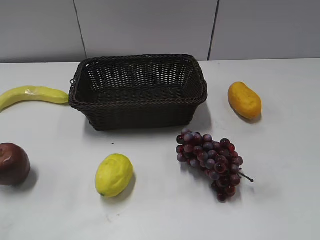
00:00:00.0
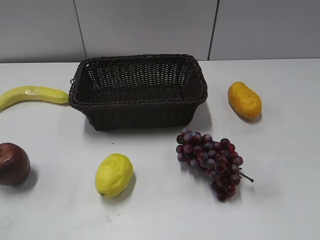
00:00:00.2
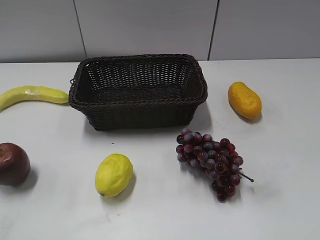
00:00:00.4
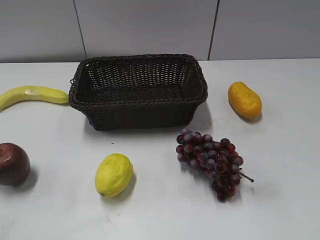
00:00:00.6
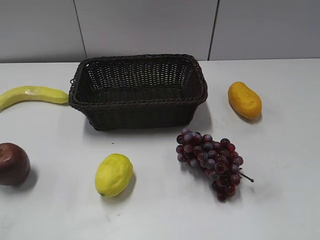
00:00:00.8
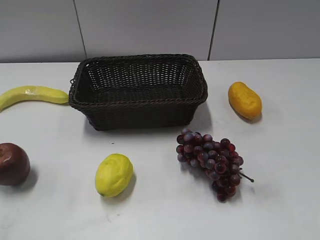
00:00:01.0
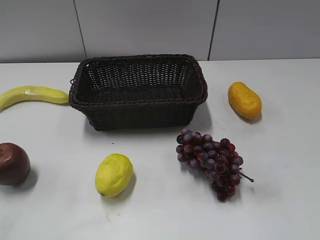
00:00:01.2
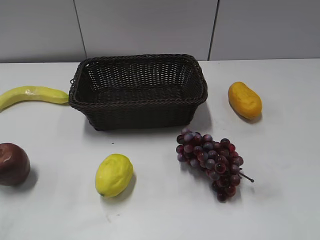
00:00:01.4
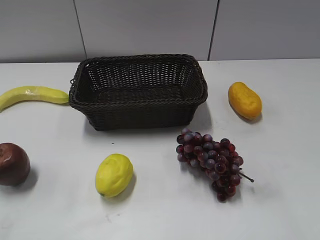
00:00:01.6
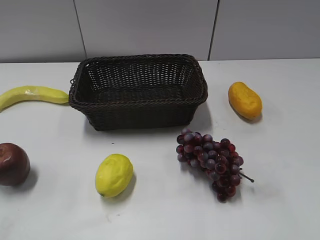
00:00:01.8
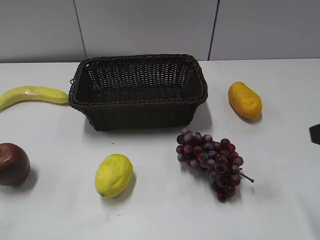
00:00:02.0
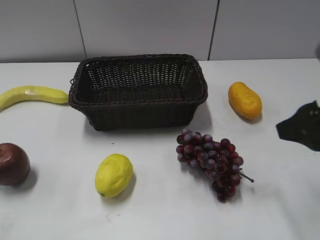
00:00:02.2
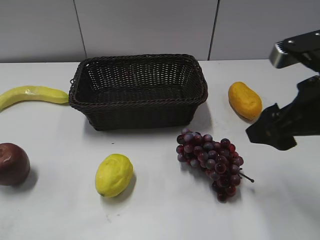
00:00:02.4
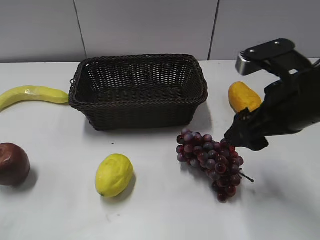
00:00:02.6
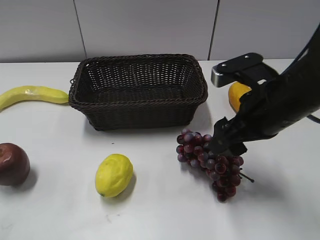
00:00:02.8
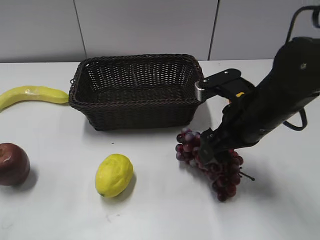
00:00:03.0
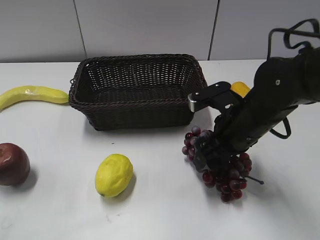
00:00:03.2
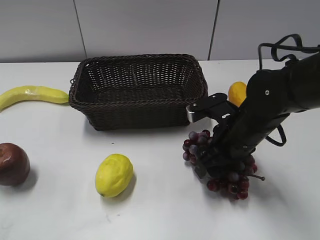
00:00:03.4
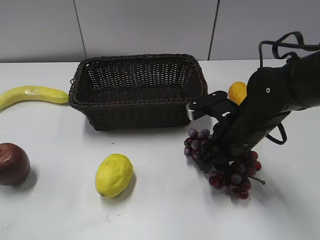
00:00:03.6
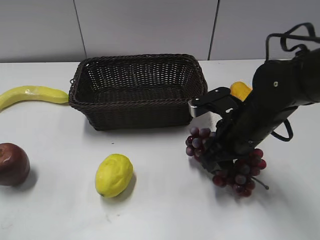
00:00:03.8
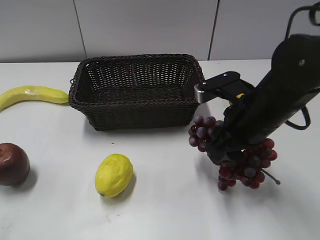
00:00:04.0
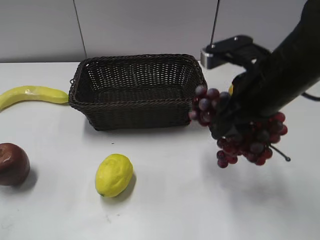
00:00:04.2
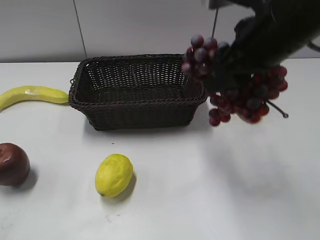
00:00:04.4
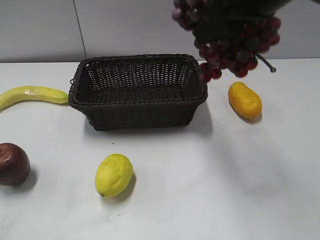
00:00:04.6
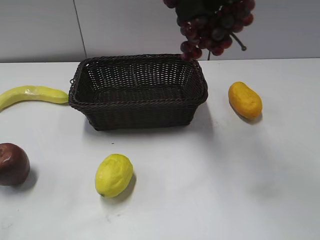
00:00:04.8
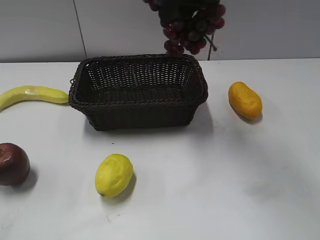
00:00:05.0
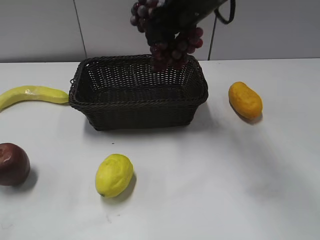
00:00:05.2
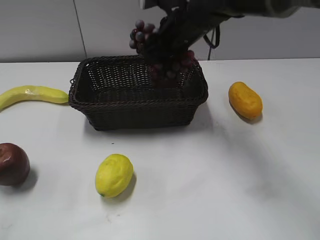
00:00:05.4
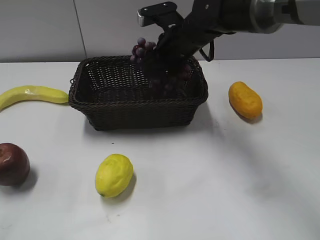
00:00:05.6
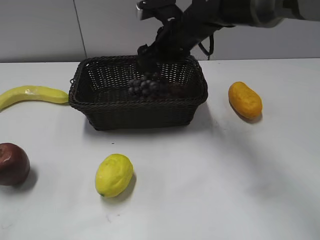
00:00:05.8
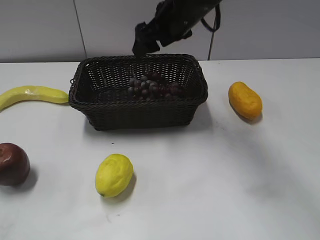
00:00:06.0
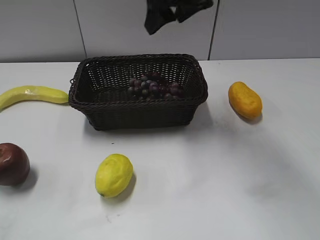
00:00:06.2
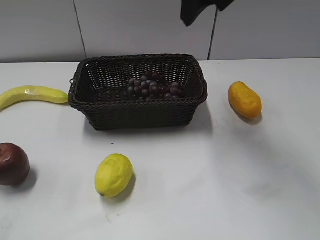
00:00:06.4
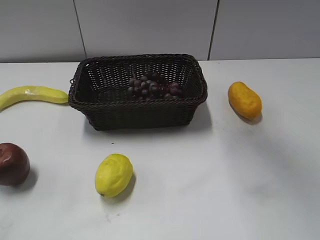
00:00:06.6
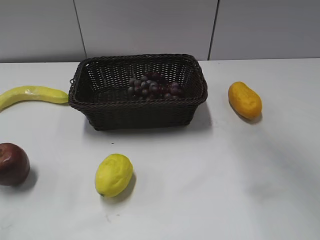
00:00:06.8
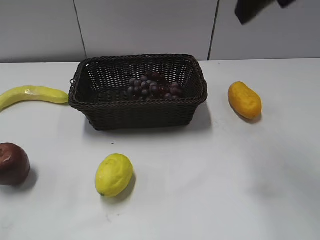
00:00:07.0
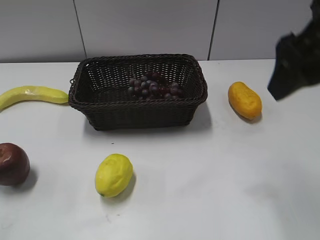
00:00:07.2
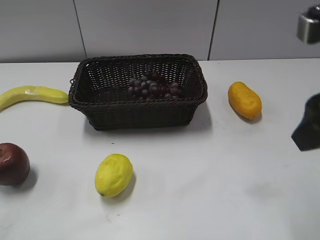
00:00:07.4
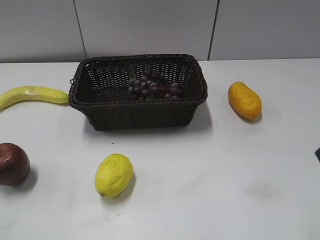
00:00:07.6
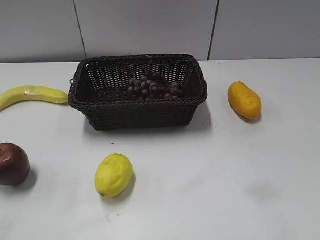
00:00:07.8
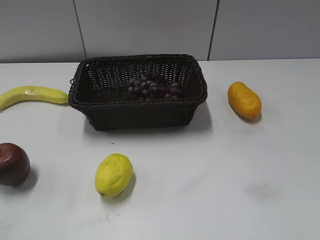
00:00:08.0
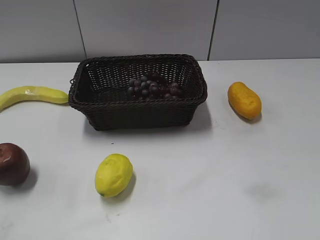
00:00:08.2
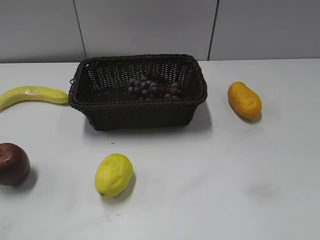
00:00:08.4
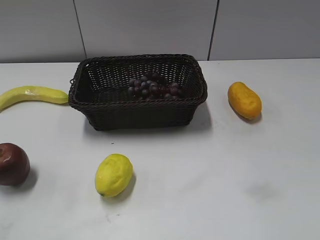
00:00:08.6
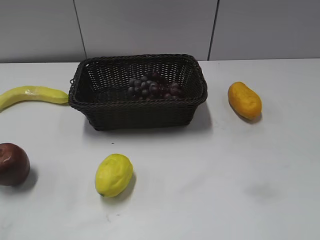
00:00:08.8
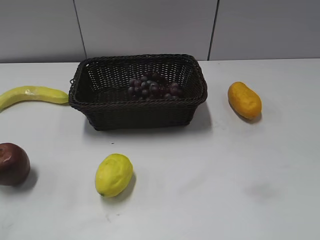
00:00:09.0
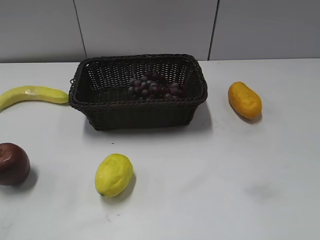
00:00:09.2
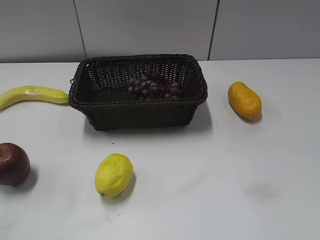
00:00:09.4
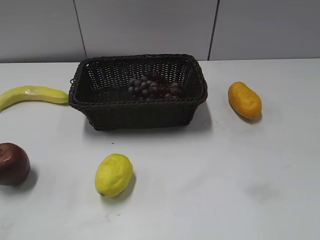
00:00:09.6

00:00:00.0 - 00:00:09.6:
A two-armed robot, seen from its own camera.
Step, 00:00:02.0 - 00:00:04.2: Grasp the grape with right gripper.
Step, 00:00:04.4 - 00:00:06.0: Place the grape in the basket with right gripper.
00:00:01.6 - 00:00:03.2: The right gripper shifts about 30 cm forward, to the left and downward.
00:00:03.2 - 00:00:04.8: The right gripper shifts roughly 20 cm upward, and closes up.
00:00:04.8 - 00:00:06.4: The right gripper is displaced forward by about 5 cm, reaches approximately 15 cm downward, then returns, and opens.
00:00:06.4 - 00:00:08.0: The right gripper moves backward and to the right, some 35 cm.

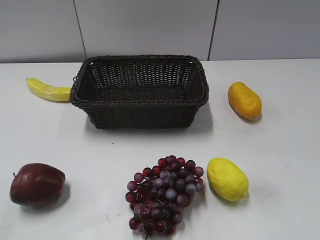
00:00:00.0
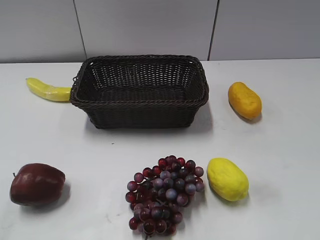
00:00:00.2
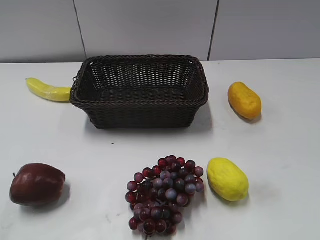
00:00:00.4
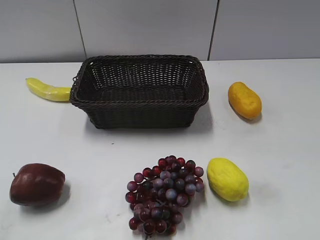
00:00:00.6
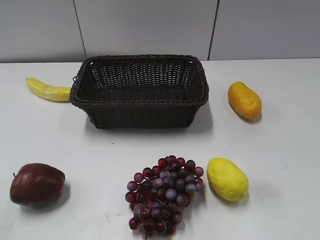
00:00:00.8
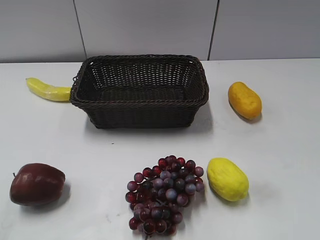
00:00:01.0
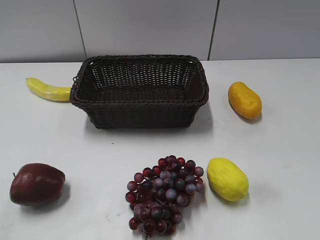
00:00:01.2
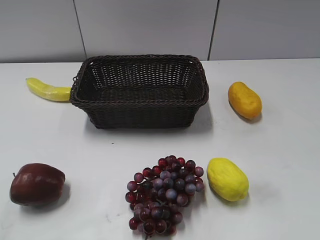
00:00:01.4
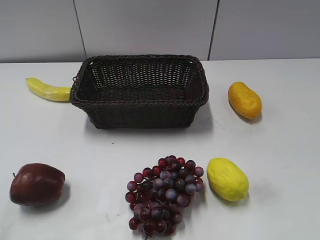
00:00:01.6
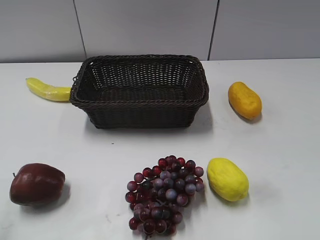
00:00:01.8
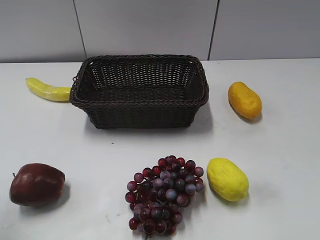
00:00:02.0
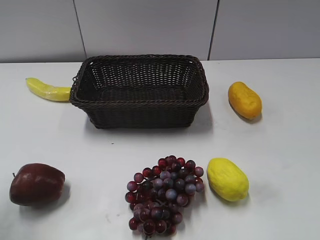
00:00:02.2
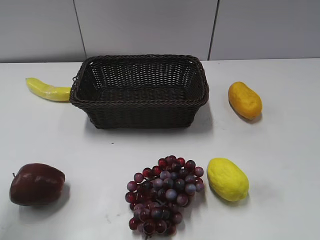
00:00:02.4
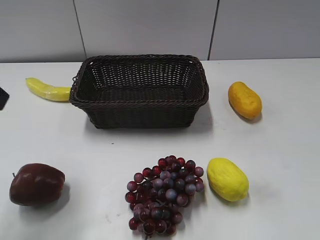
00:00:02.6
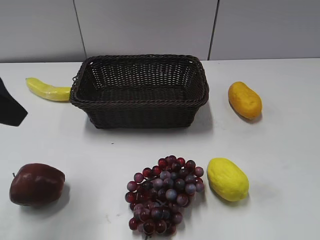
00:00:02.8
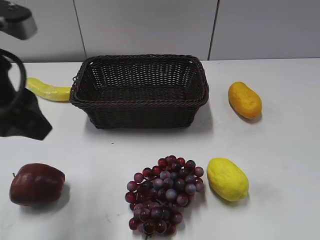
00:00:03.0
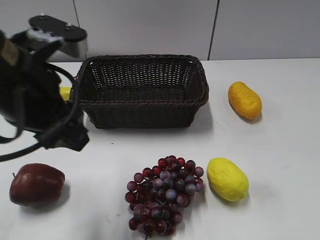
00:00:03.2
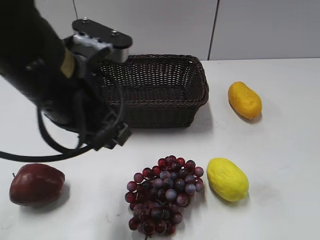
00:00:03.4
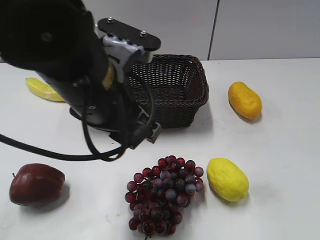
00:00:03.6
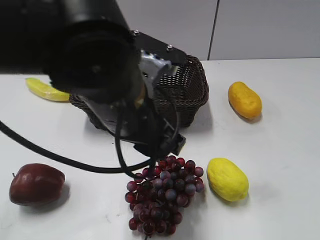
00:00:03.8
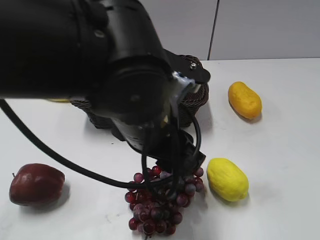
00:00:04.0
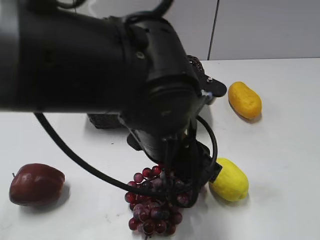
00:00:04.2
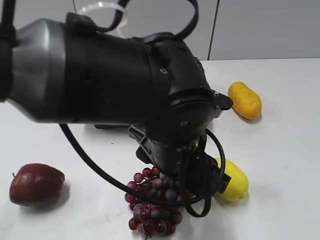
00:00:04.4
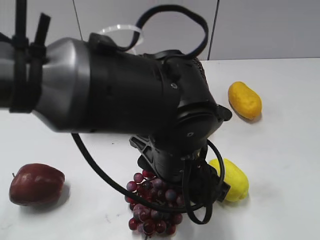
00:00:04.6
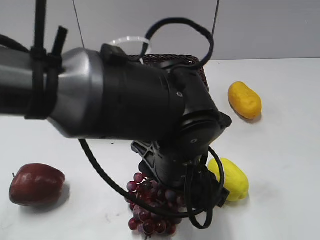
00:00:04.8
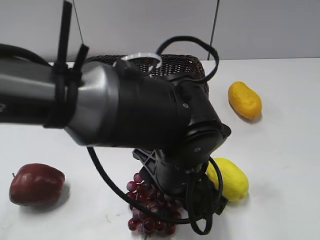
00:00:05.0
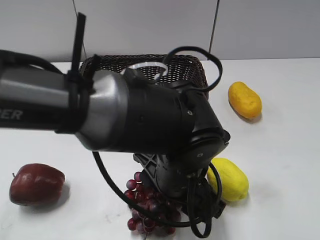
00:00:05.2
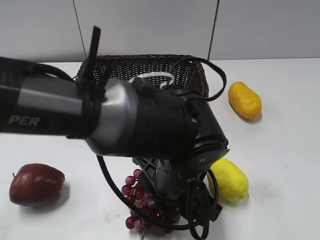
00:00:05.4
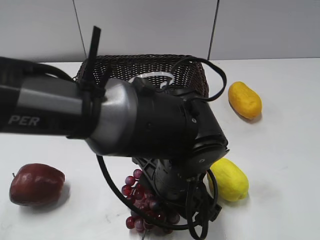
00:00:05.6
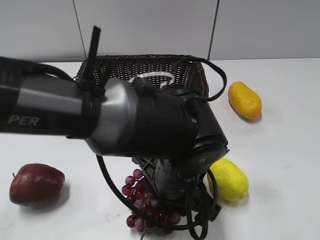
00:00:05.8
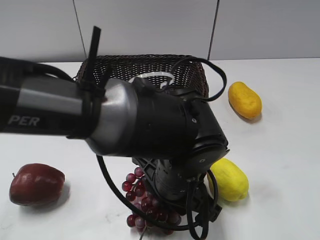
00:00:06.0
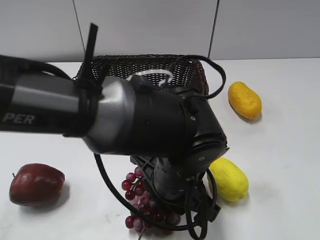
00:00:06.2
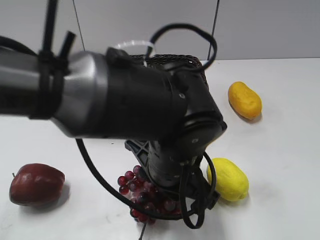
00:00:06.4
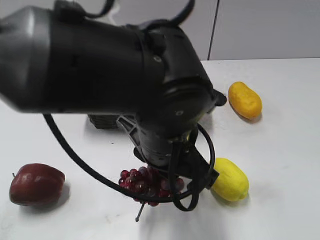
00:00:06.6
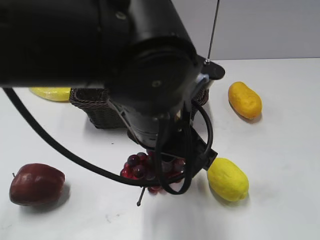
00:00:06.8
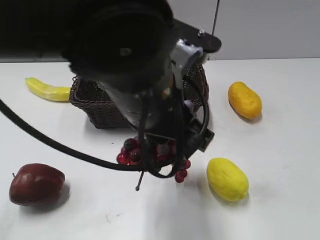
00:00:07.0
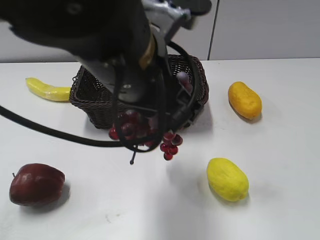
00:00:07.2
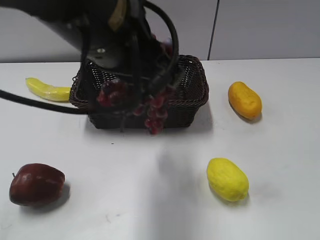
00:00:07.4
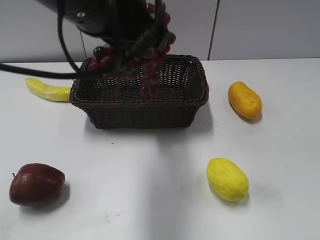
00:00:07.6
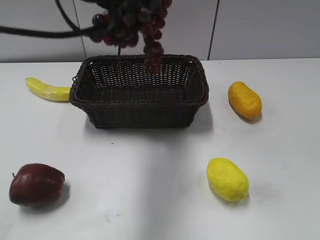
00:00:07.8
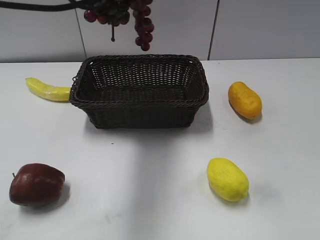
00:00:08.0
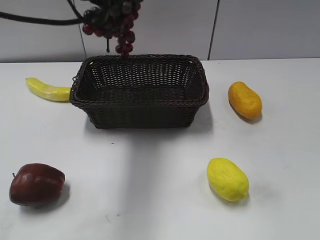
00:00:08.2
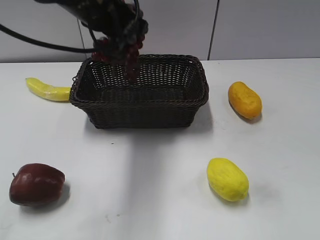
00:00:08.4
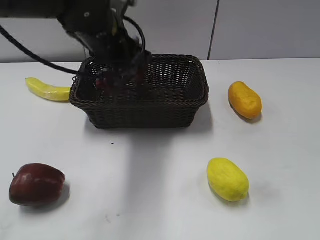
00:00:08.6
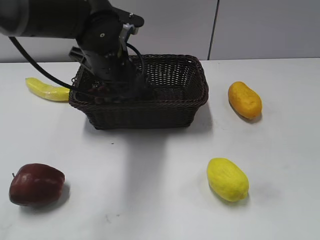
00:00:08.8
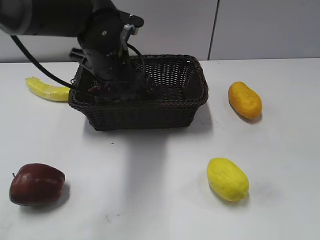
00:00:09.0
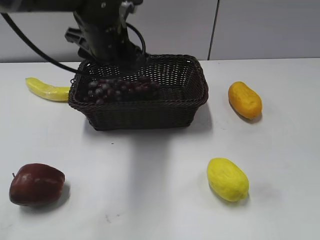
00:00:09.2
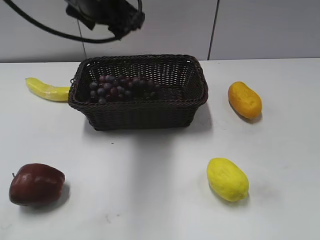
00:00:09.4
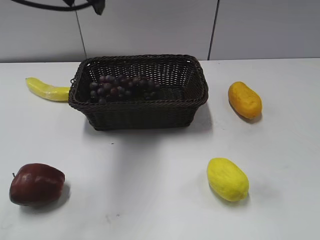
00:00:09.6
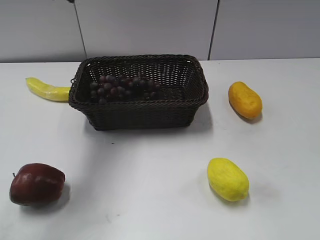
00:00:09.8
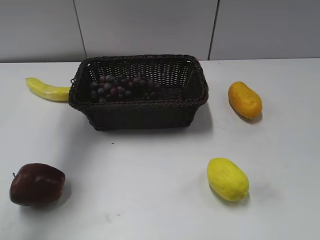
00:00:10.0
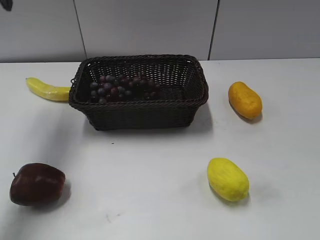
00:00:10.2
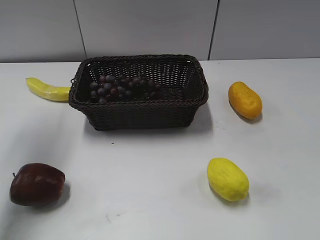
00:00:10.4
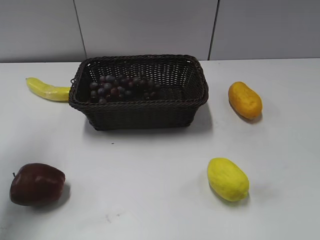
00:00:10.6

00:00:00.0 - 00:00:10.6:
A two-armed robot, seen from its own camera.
Step, 00:00:02.6 - 00:00:06.4: Grasp the grape with left gripper.
Step, 00:00:06.6 - 00:00:09.4: Place the grape in the basket with left gripper.
00:00:01.6 - 00:00:03.0: The left gripper travels forward and to the right by approximately 20 cm.
00:00:03.0 - 00:00:04.6: The left gripper is displaced to the right and downward by about 25 cm.
00:00:04.6 - 00:00:06.0: The left gripper closes up.
00:00:06.0 - 00:00:07.6: The left gripper heads upward and to the left, covering about 25 cm.
00:00:07.6 - 00:00:09.0: The left gripper goes approximately 20 cm downward and forward, and opens its fingers.
00:00:09.0 - 00:00:10.6: The left gripper travels to the left and upward by about 25 cm.

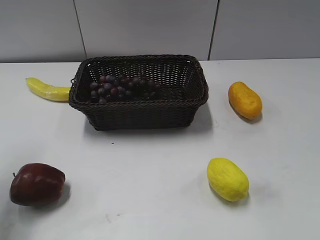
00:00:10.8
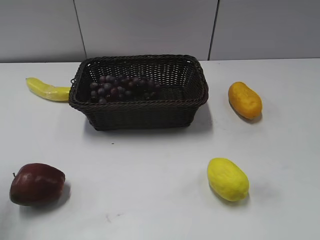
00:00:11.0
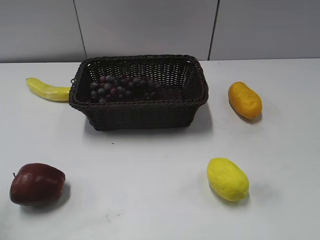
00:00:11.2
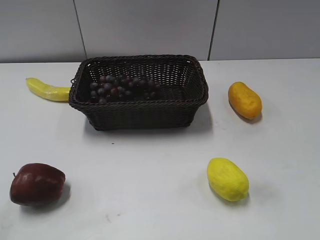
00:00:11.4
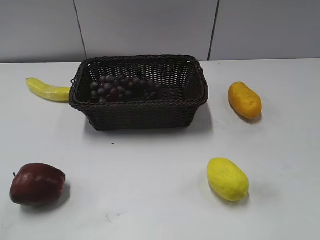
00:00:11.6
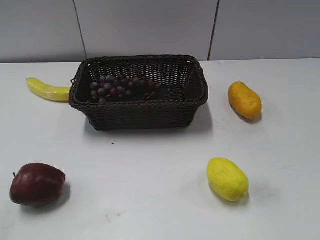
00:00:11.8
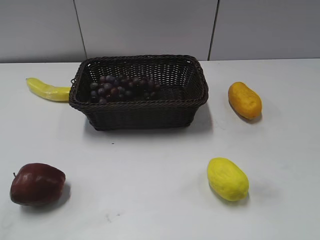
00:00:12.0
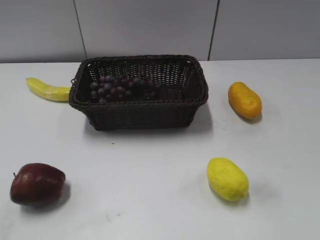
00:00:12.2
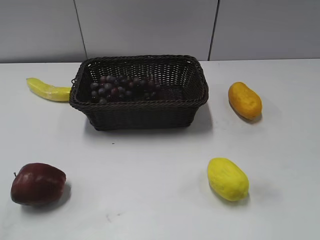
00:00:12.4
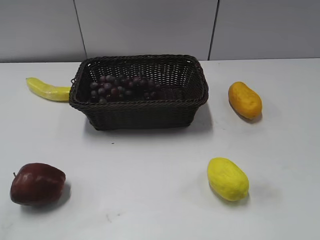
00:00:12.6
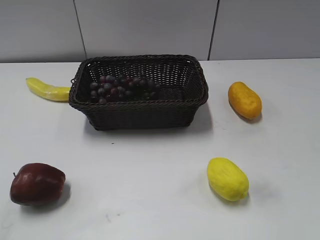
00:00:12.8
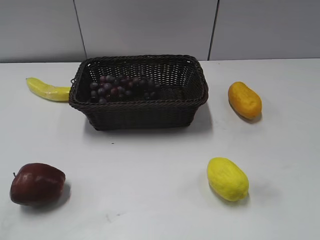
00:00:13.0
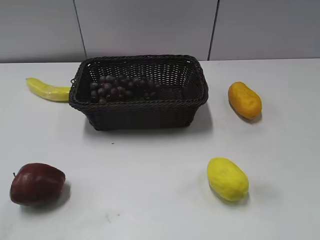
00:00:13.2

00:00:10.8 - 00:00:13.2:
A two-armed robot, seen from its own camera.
00:00:10.8 - 00:00:12.0: The left gripper shifts approximately 25 cm backward.
